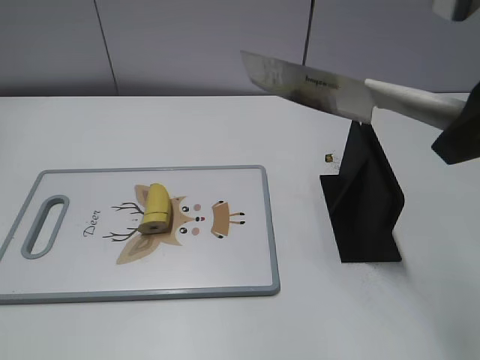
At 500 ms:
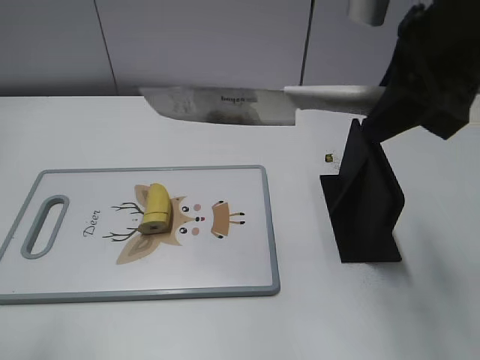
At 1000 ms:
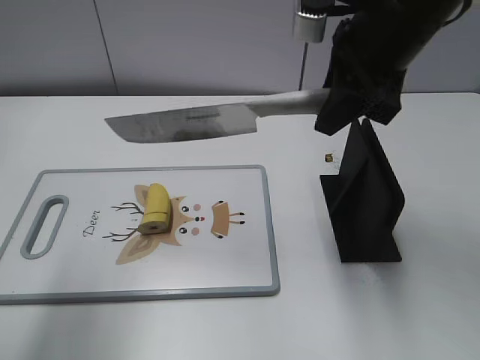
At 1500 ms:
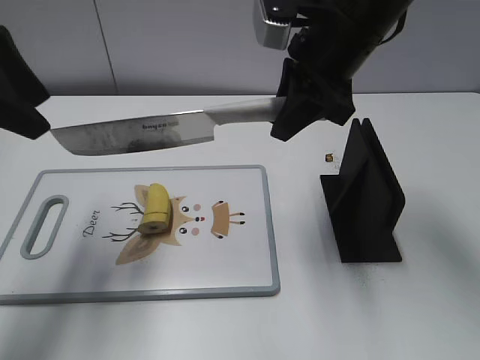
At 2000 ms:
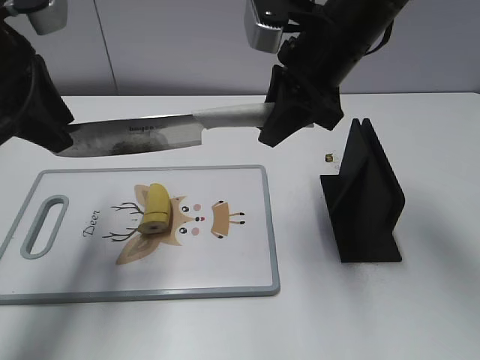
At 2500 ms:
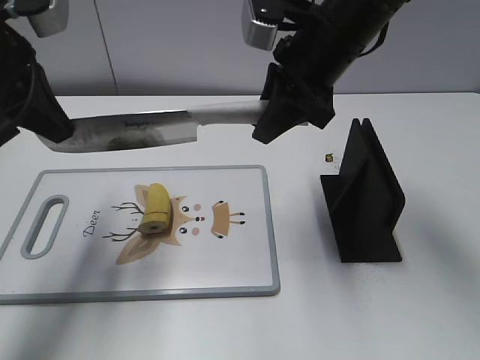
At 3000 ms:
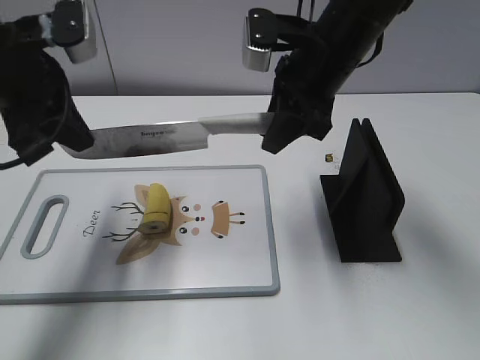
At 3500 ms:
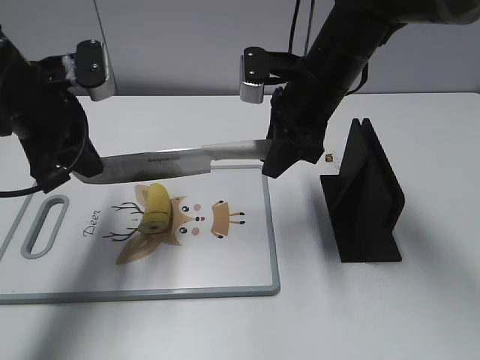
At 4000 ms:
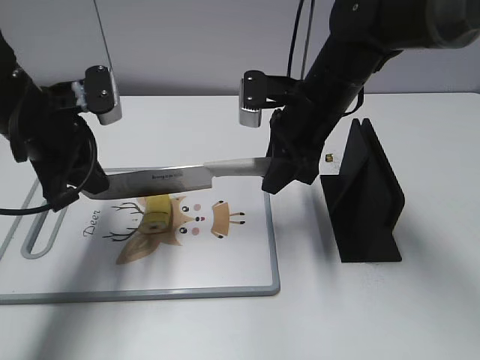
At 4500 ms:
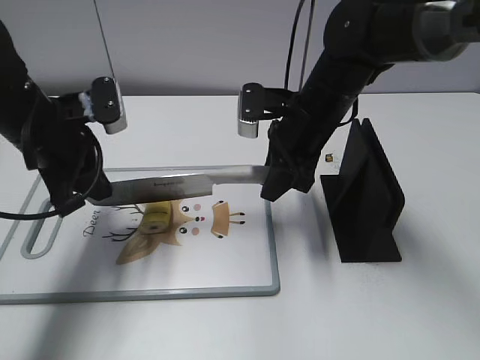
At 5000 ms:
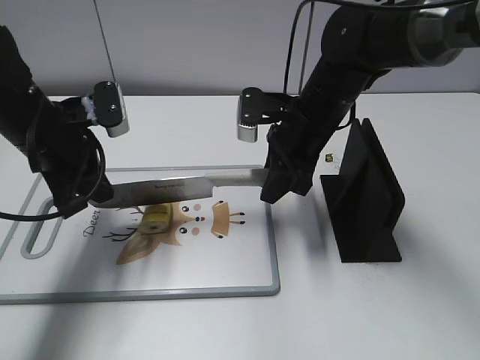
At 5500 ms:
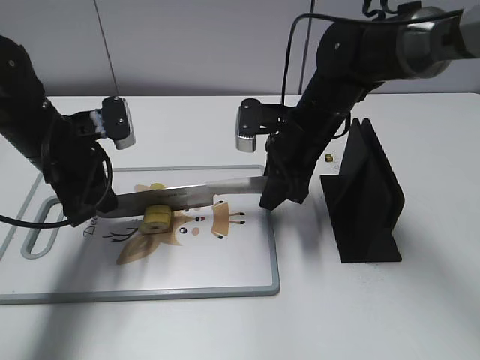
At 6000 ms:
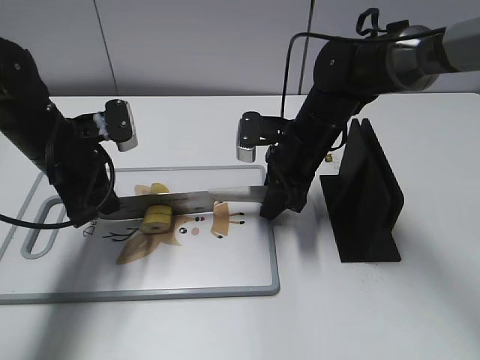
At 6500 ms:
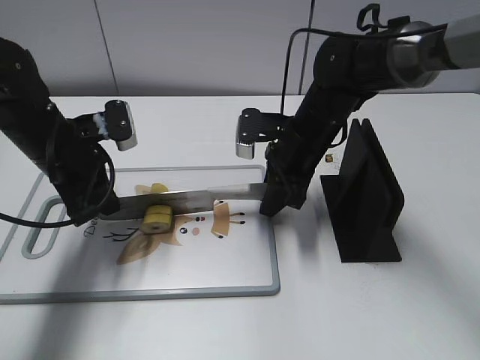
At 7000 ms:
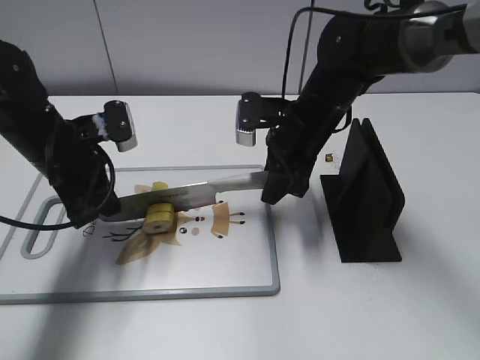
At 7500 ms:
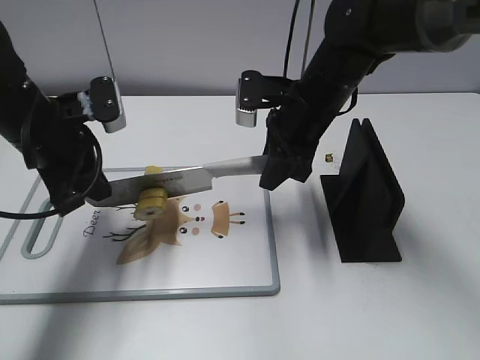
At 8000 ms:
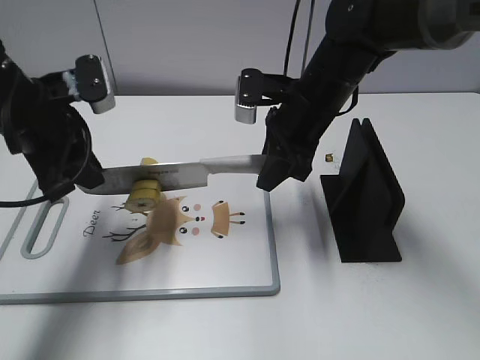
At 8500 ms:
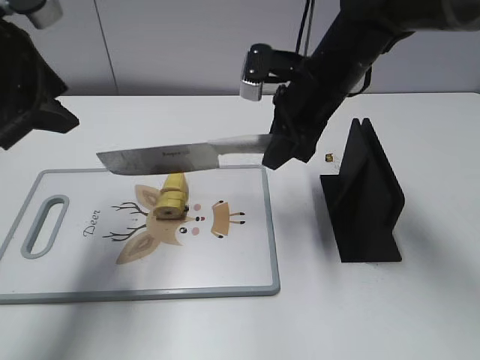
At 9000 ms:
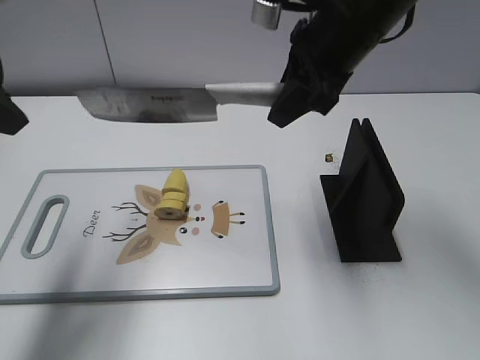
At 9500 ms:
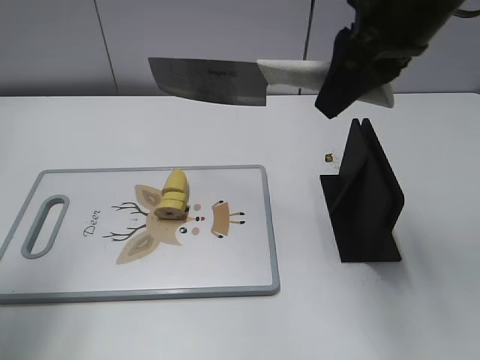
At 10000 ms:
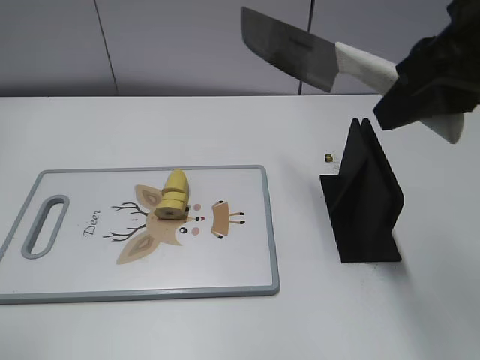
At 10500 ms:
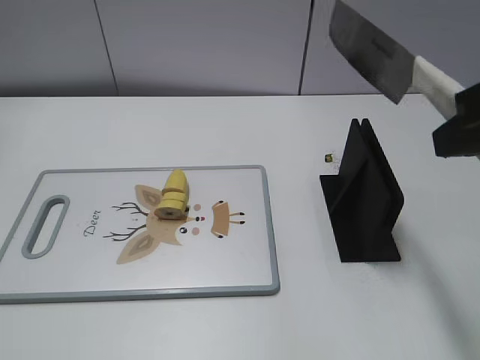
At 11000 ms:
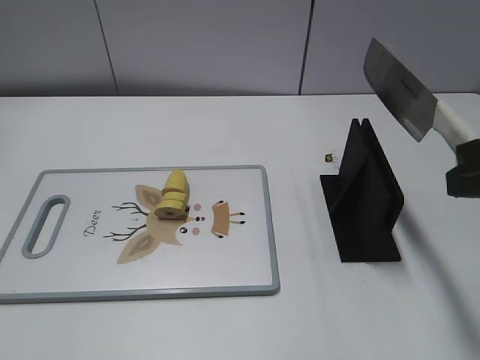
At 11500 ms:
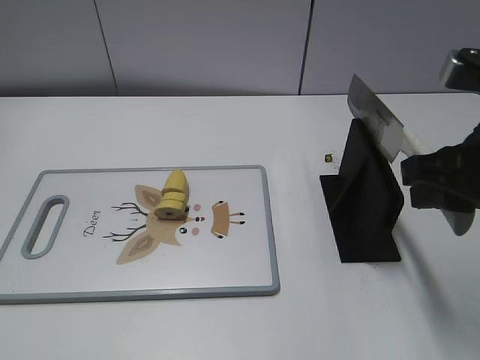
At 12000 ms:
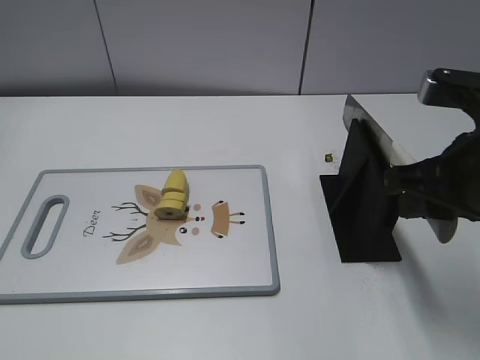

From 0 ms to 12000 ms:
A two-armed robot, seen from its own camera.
Task of the whole recording: cut banana.
Step, from 0 ms to 5000 ms: Lift the knife with your right hand.
Step, from 5500 ms to 9500 ms: Cut the banana with your right hand.
From 0 ms to 2000 ms: The left gripper shifts some 30 cm forward. Meanwhile the right gripper shifts roughly 20 cm forward, to the left and downward.
From 2000 ms to 4000 ms: The two grippers go some 10 cm downward. The left gripper closes up.
From 4000 ms to 6000 ms: Both grippers travel together downward, approximately 5 cm.
From 6000 ms to 8000 ms: Both grippers travel together upward, about 5 cm.
From 8000 ms to 10000 ms: The right gripper shifts about 25 cm upward, backward and to the right. The left gripper travels backward, upward and to the left by approximately 25 cm, and opens up.
From 10000 ms to 12000 ms: The left gripper goes approximately 10 cm backward. The right gripper shifts roughly 10 cm downward.

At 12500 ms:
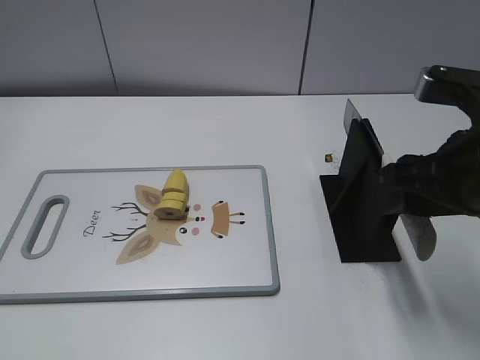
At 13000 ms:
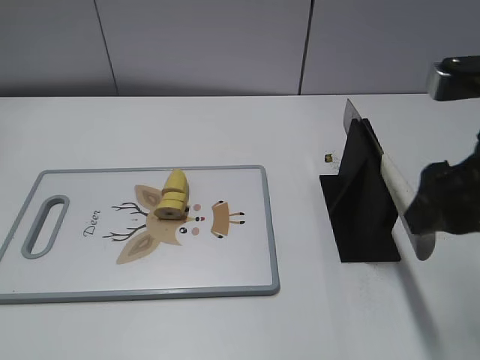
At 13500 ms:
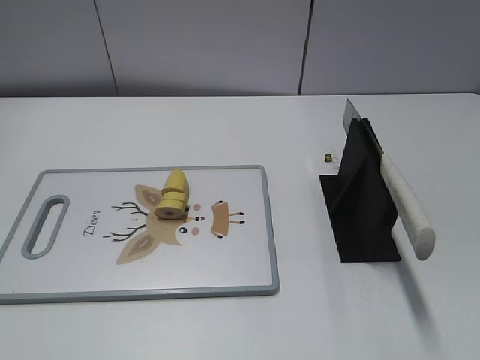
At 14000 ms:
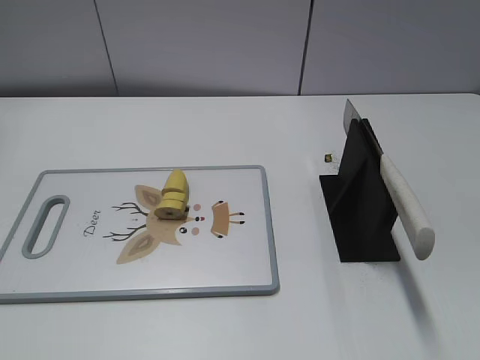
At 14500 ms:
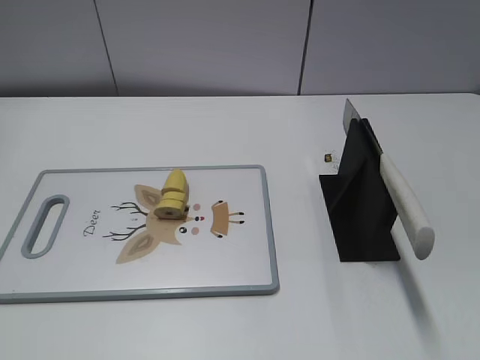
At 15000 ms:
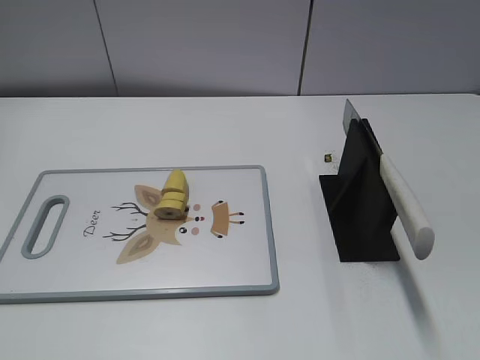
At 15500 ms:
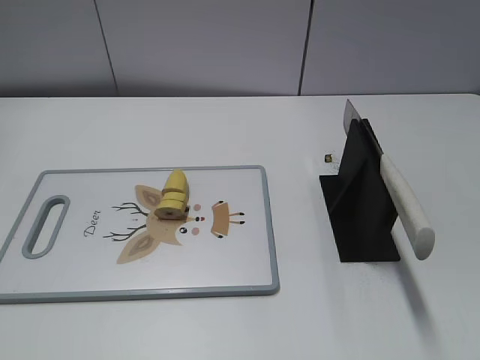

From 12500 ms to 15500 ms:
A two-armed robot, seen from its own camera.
Task of the whole recording: cut banana.
Step, from 13000 ms to 15500 ms: Place the knife on the storage rack with your right hand.
From 12500 ms to 14000 ms: The right gripper travels backward and to the right by approximately 20 cm.

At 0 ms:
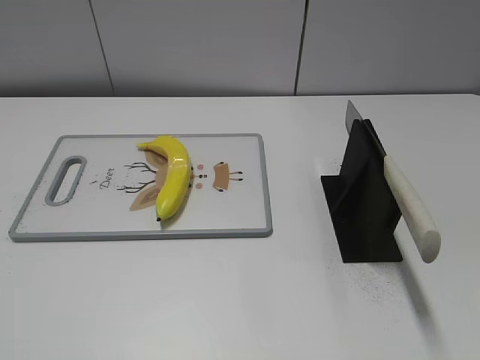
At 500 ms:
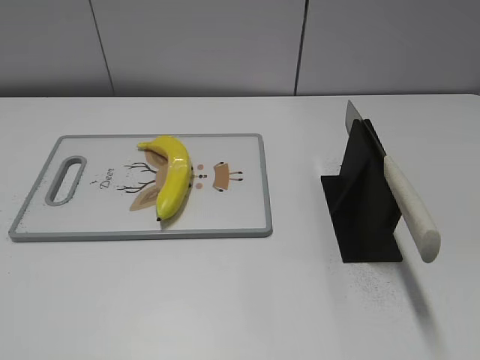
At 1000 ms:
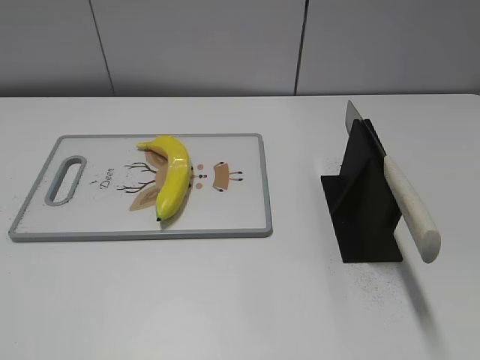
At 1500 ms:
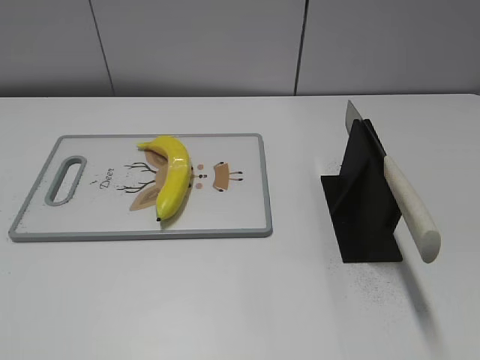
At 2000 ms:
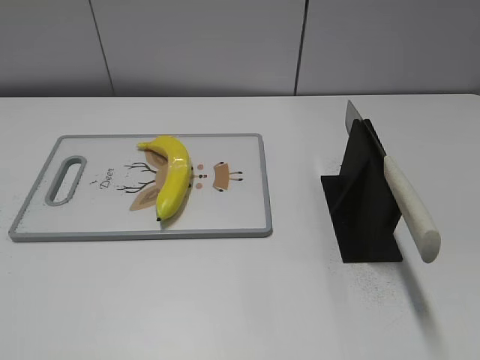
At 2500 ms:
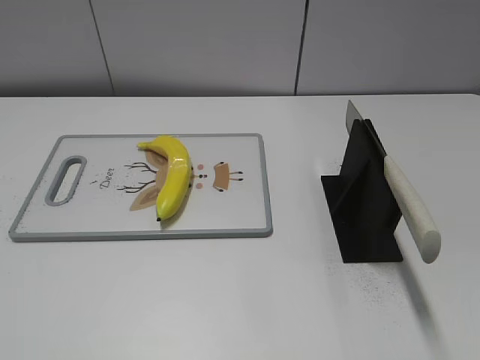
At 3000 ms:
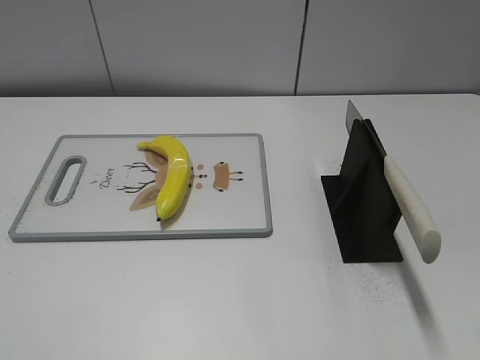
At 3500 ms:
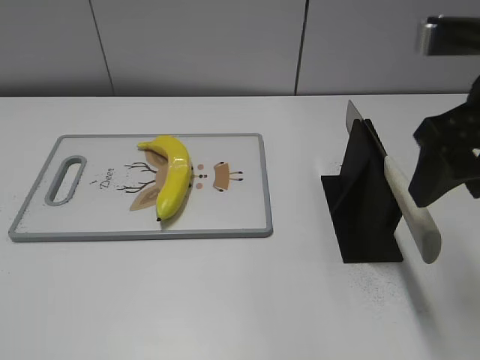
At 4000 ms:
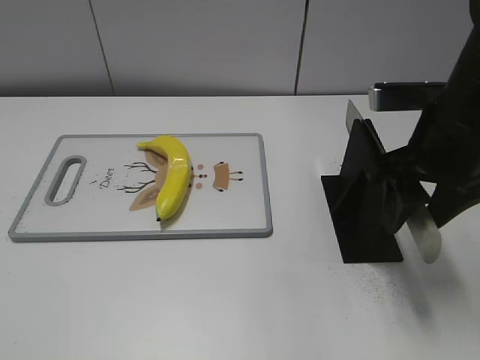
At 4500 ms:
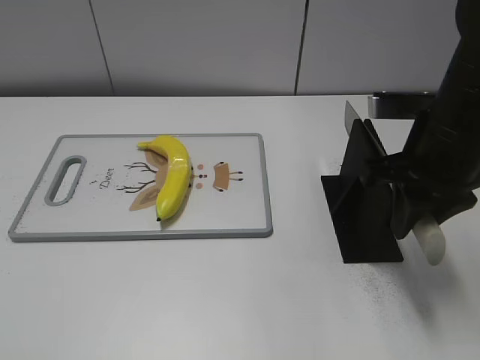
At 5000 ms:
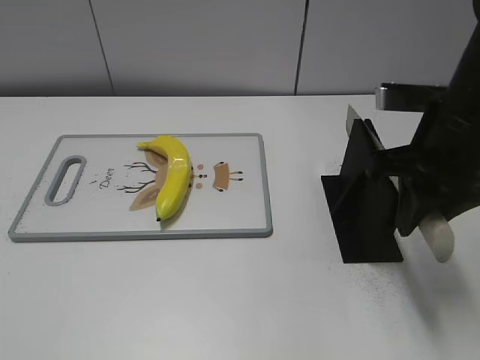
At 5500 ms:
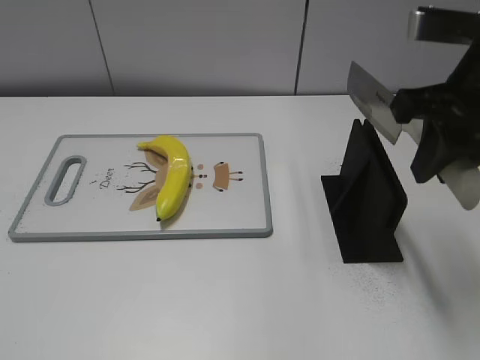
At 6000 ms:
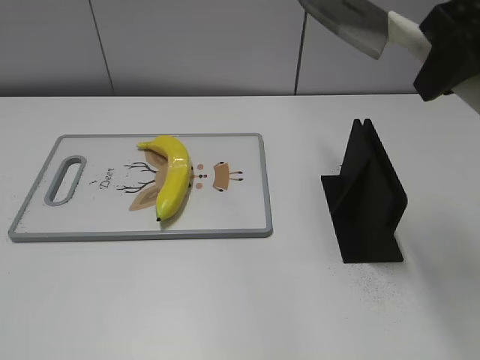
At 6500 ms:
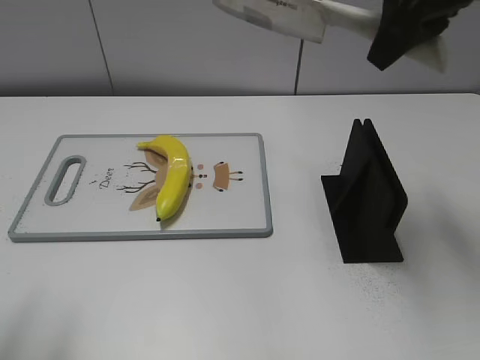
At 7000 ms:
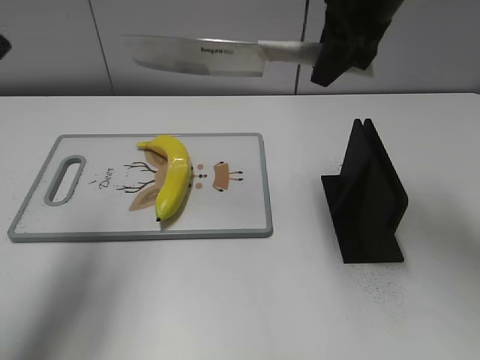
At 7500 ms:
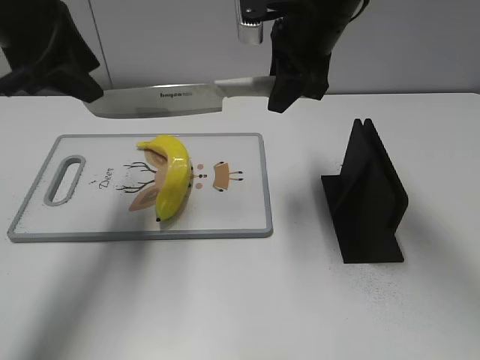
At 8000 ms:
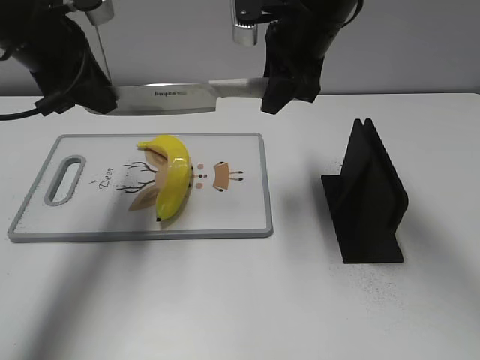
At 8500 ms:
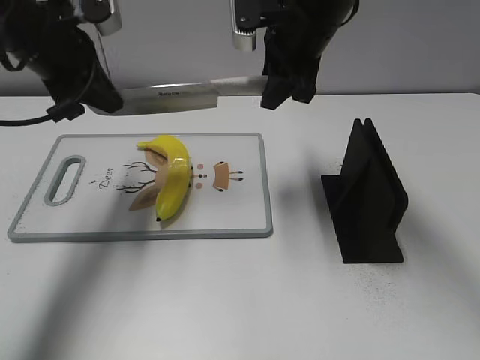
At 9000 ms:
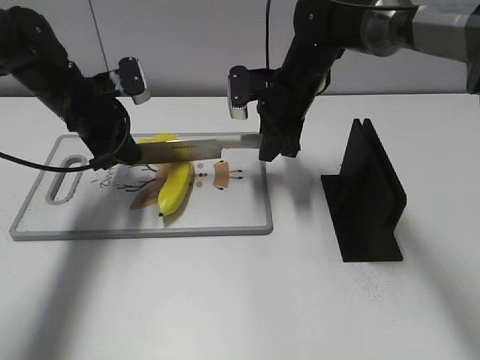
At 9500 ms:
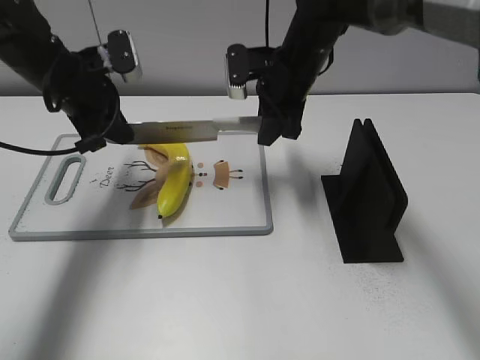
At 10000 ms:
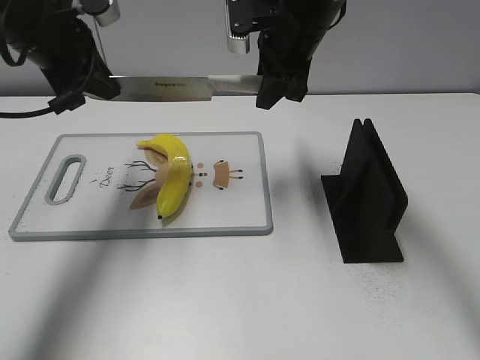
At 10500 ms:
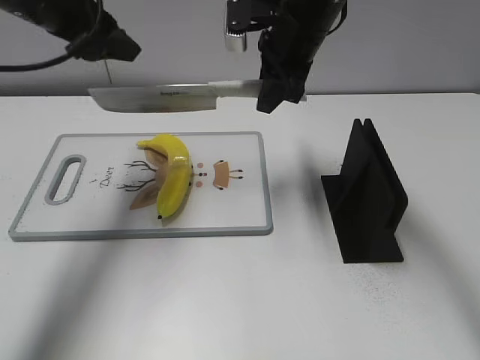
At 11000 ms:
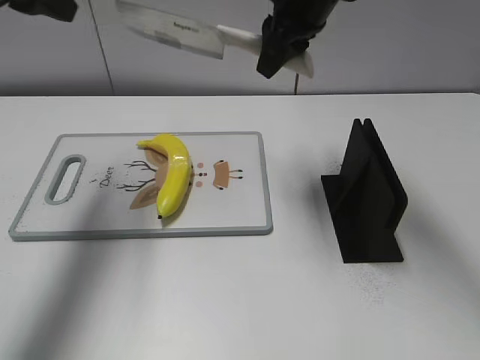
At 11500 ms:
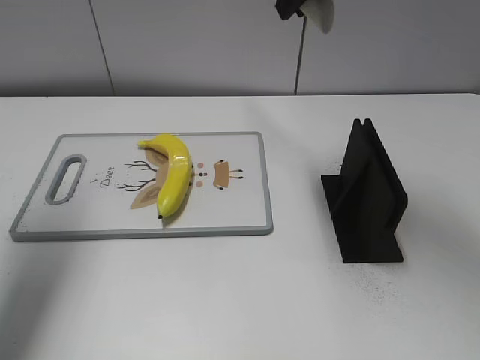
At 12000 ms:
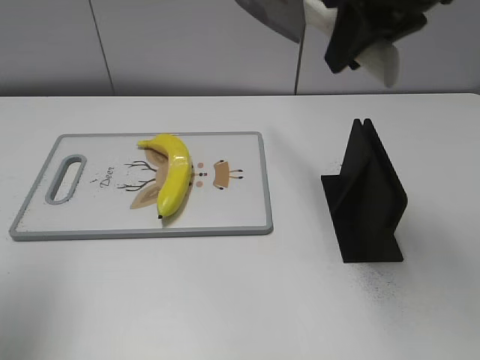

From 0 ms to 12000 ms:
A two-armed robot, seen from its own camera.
Task of the whole recording: cut plastic banana.
Step, from 0 ms to 5000 ms: Grab the knife handle with your right hand.
Step, from 6000 ms to 10000 ms: Lift the knife with your right hand.
Step, from 10500 ms to 11000 ms: Cut the banana with your right hand.
From 2000 ms to 4000 ms: The right gripper goes approximately 25 cm forward.
From 4000 ms to 6000 ms: The right gripper moves upward, some 15 cm, and closes.
From 6000 ms to 8000 ms: The left gripper goes roughly 35 cm forward, and closes its fingers; the right gripper travels forward, to the left and downward by about 20 cm.
From 8000 ms to 10000 ms: The left gripper moves some 15 cm downward and comes back, and closes. The right gripper moves roughly 10 cm downward and comes back.
From 10000 ms to 12000 ms: The right gripper heads backward, upward and to the right, covering roughly 20 cm; the left gripper goes some 20 cm backward, to the left and upward, and opens.
